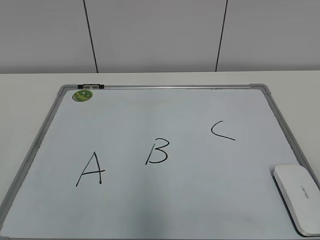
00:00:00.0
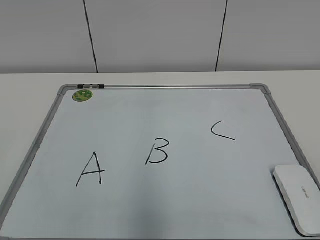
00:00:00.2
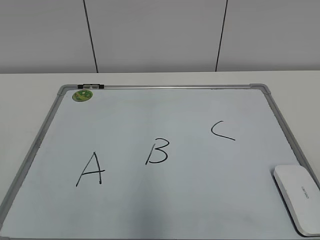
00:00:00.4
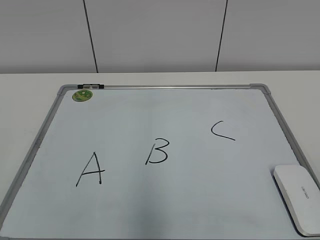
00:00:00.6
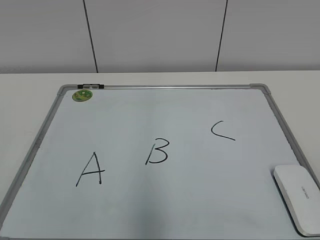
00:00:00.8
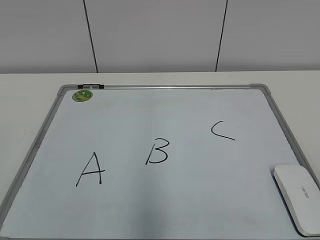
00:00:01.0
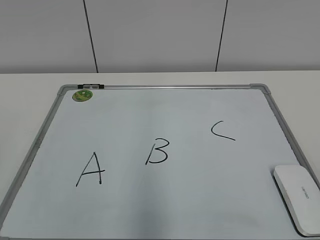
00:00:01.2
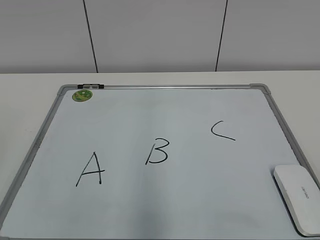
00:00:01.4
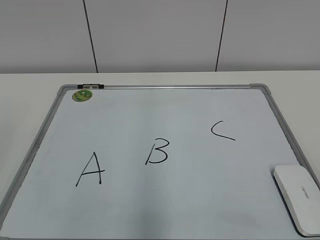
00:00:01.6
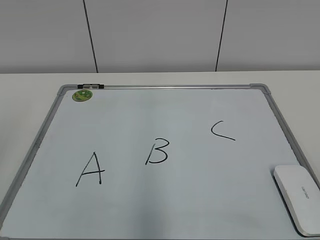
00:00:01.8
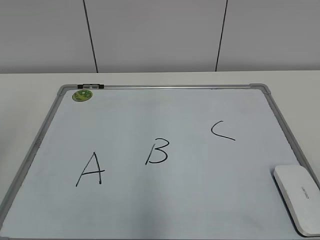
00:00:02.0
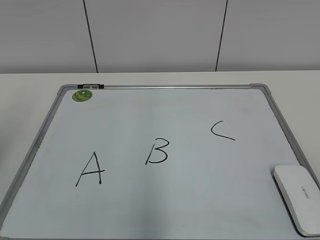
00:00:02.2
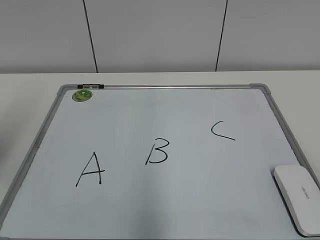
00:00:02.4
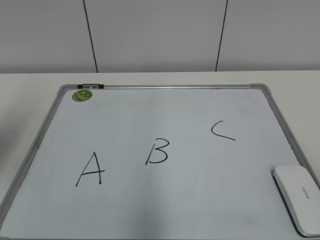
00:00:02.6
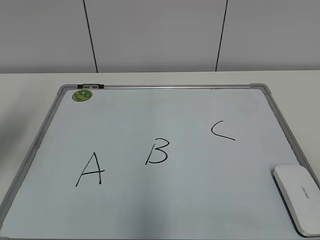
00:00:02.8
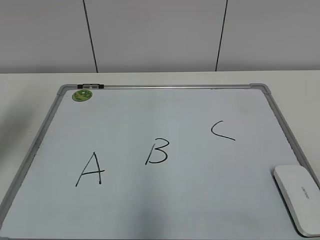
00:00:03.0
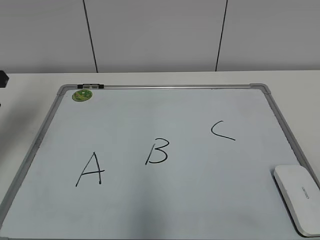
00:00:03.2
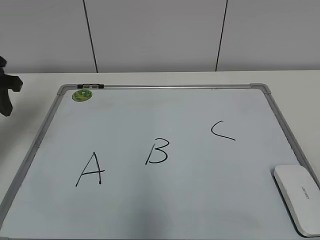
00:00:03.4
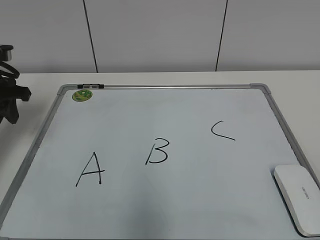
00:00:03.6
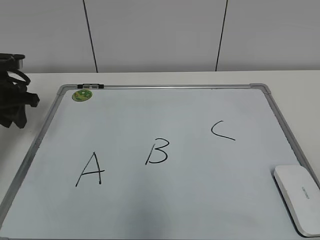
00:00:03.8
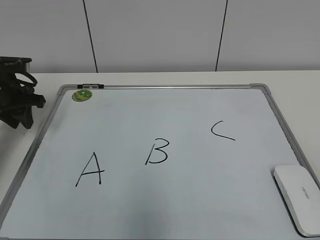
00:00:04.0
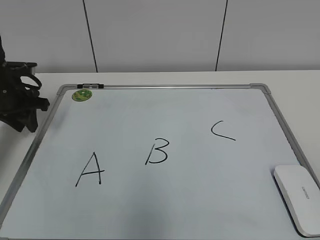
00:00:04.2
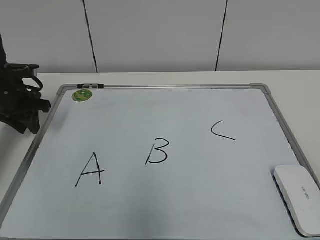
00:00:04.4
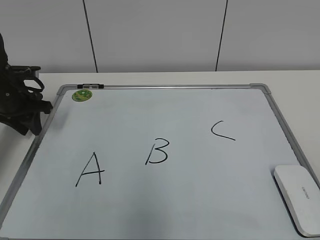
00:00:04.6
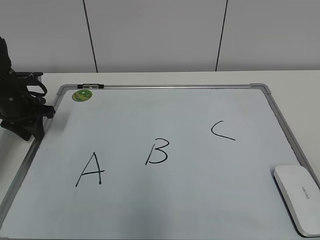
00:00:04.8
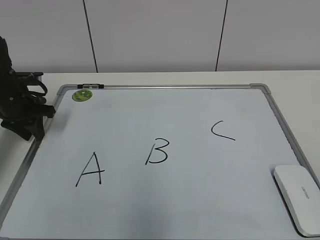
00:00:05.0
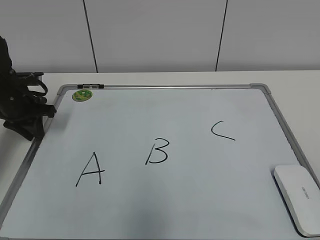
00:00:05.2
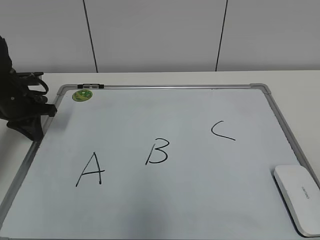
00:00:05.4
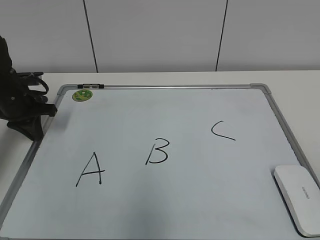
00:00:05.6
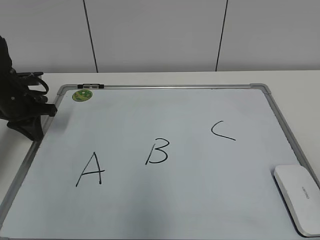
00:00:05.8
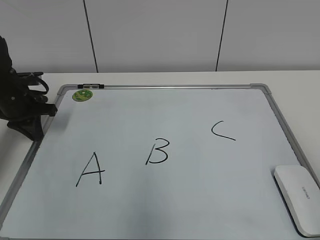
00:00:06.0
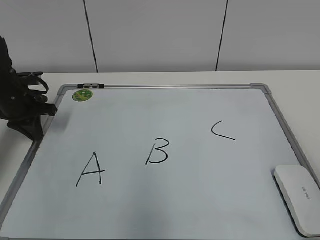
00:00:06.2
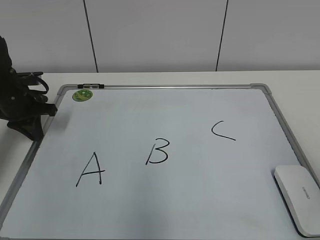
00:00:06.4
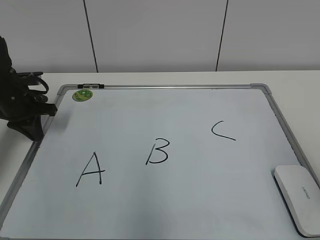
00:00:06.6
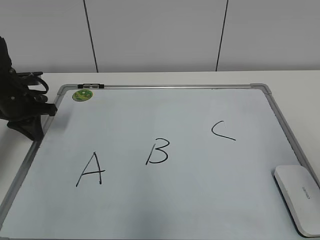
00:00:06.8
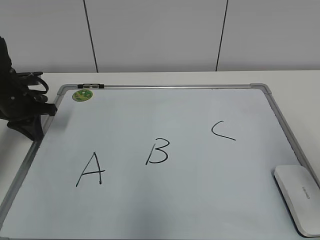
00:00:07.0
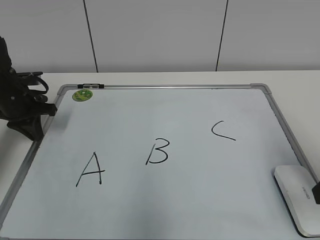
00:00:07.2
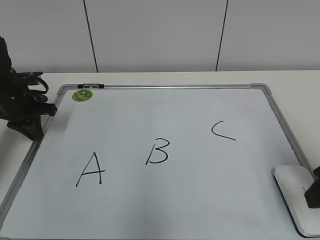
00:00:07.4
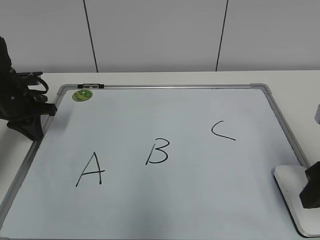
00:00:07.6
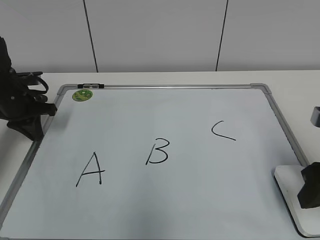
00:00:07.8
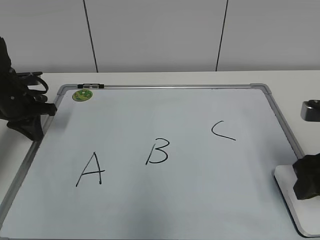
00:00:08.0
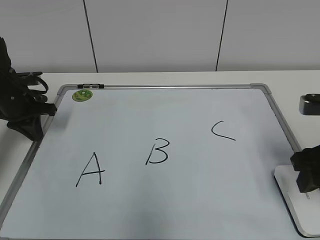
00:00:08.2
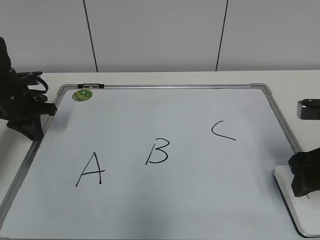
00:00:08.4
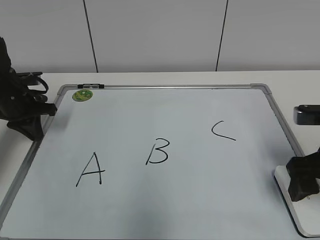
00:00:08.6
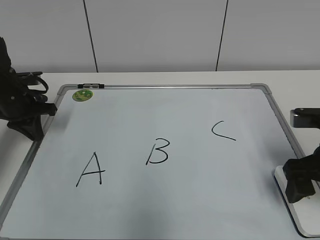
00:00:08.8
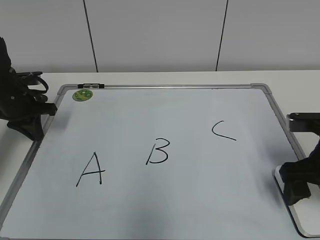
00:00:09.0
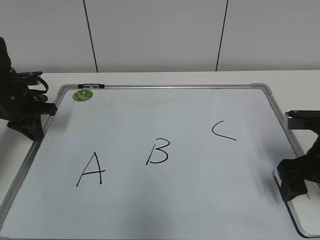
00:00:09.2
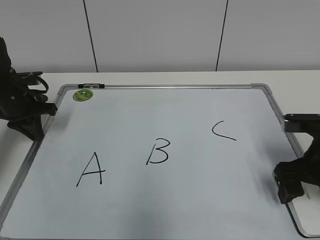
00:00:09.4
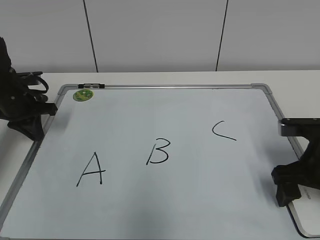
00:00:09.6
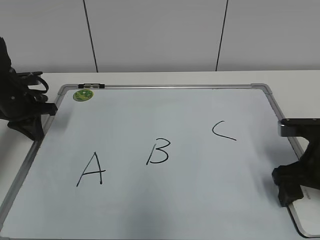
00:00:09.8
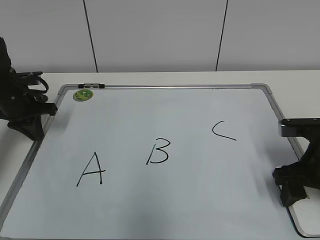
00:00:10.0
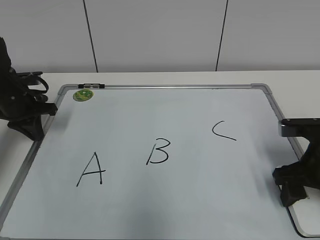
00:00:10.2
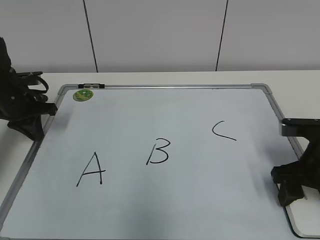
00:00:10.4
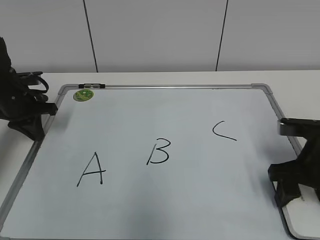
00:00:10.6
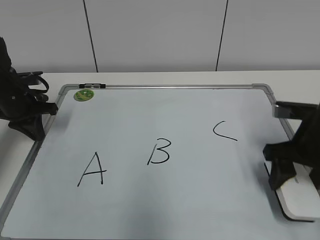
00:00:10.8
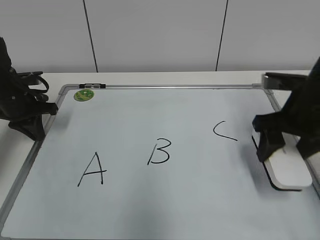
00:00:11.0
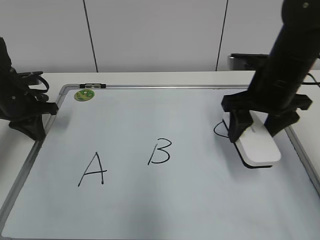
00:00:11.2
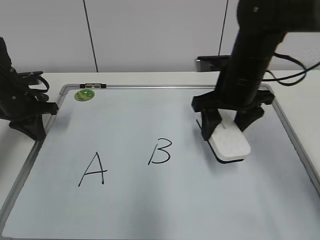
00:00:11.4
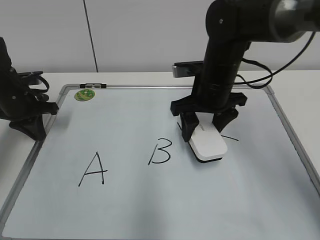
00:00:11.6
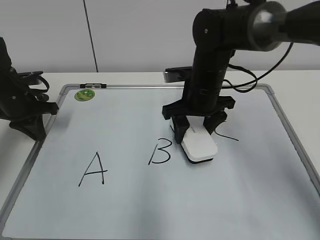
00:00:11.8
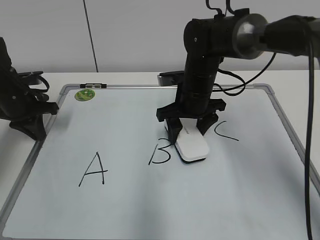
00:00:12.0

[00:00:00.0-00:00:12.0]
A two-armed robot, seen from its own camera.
Task of the whole recording: pick up the eraser on the blackboard and erase the letter "B".
Step, 00:00:00.0 to 00:00:05.2: Hold the drawing board steady with your left hand.
Step, 00:00:05.4 to 00:00:10.0: Grab the eraser with your right hand.
00:00:01.6 to 00:00:03.0: The left gripper is displaced forward by roughly 20 cm.
00:00:03.0 to 00:00:04.4: The left gripper goes approximately 15 cm downward and forward.
00:00:04.4 to 00:00:06.0: The left gripper closes up.
00:00:06.0 to 00:00:07.6: The right gripper travels forward and downward by some 20 cm.
00:00:07.6 to 00:00:09.0: The right gripper ends up some 5 cm from where it was, and opens its fingers.
00:00:09.0 to 00:00:10.4: The right gripper closes.
00:00:10.4 to 00:00:12.0: The right gripper heads to the left and forward, covering approximately 25 cm.

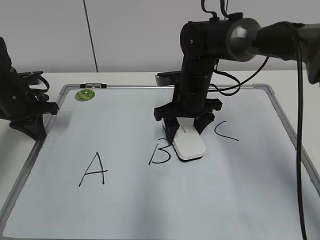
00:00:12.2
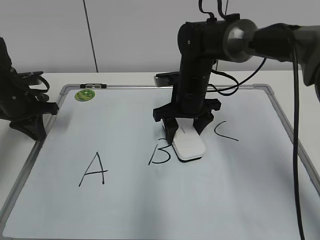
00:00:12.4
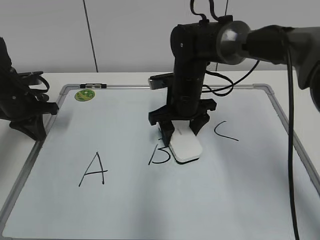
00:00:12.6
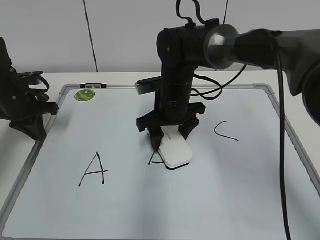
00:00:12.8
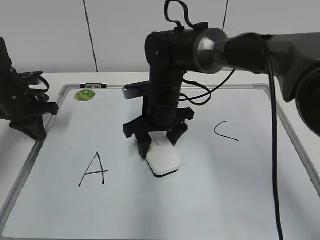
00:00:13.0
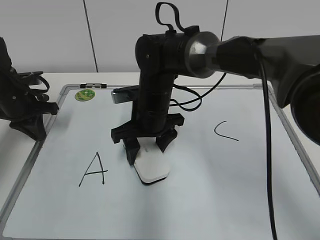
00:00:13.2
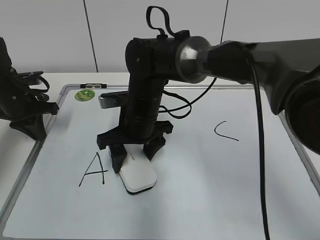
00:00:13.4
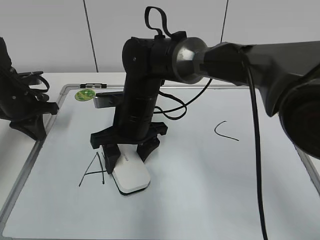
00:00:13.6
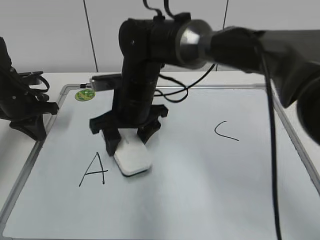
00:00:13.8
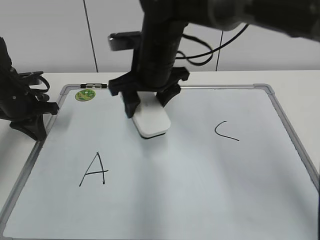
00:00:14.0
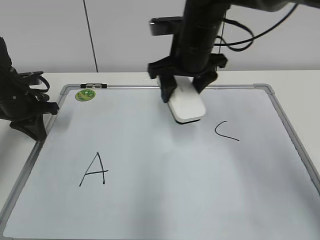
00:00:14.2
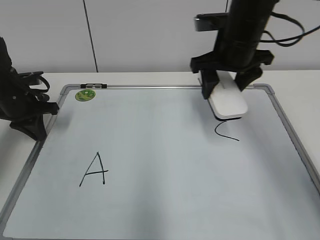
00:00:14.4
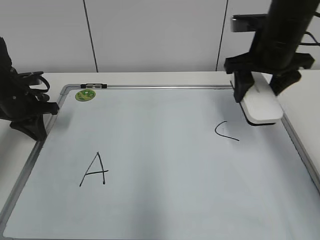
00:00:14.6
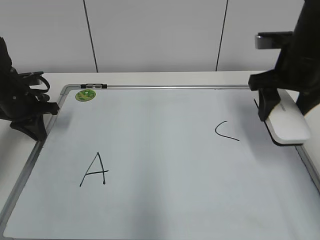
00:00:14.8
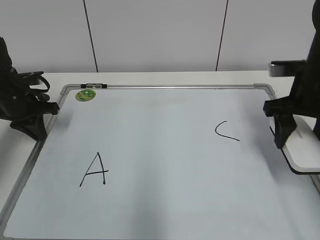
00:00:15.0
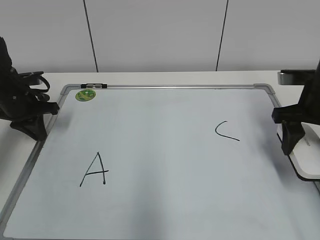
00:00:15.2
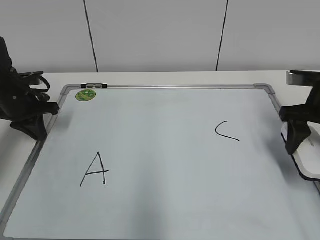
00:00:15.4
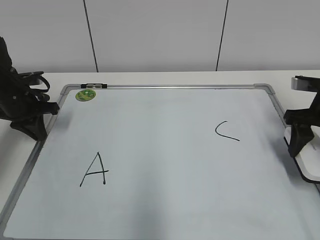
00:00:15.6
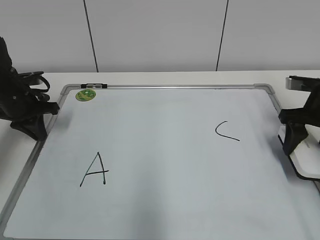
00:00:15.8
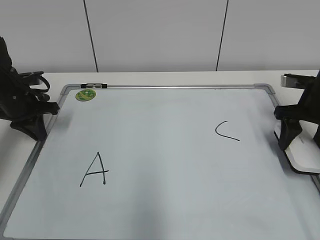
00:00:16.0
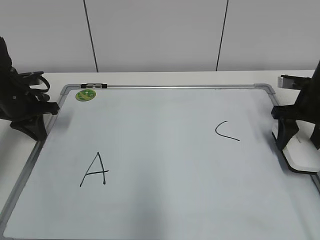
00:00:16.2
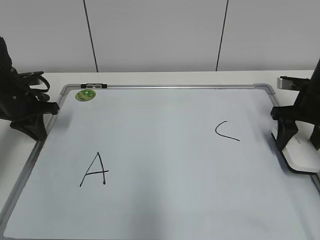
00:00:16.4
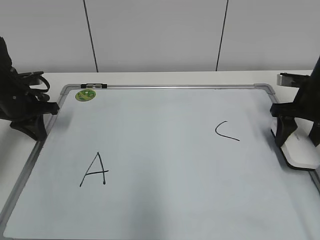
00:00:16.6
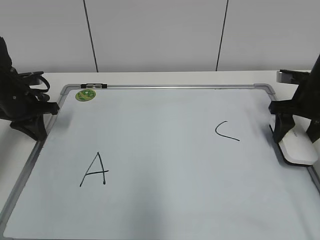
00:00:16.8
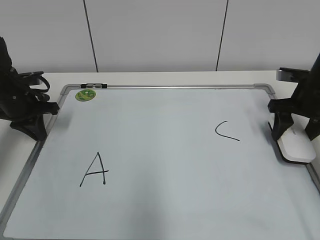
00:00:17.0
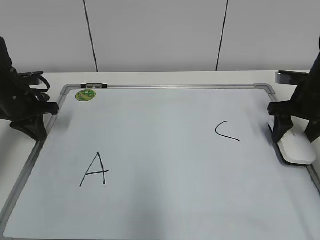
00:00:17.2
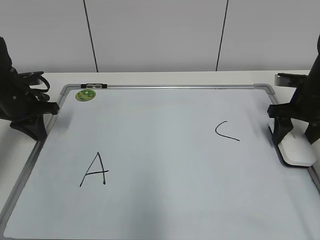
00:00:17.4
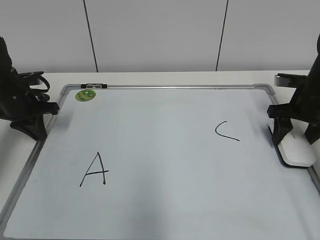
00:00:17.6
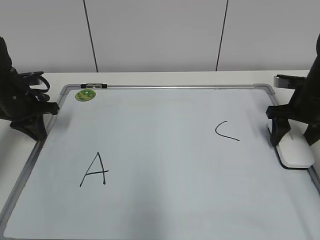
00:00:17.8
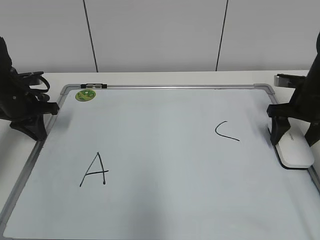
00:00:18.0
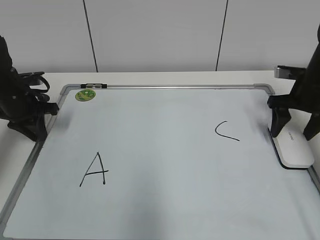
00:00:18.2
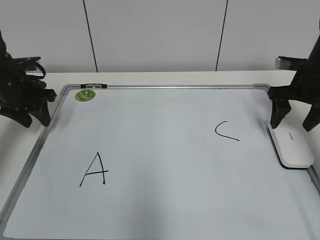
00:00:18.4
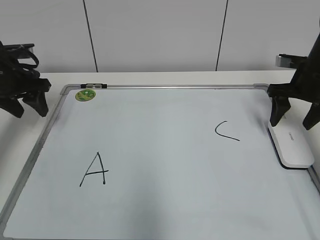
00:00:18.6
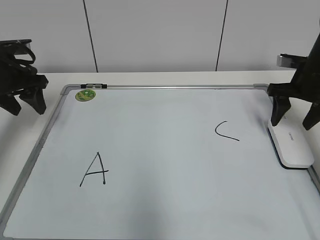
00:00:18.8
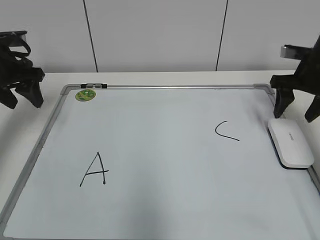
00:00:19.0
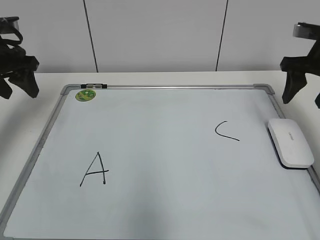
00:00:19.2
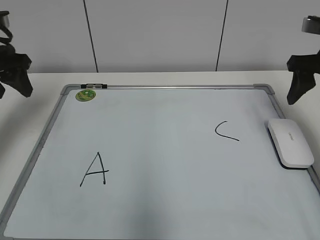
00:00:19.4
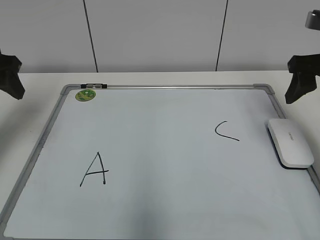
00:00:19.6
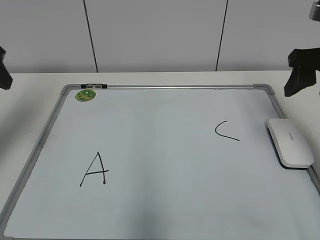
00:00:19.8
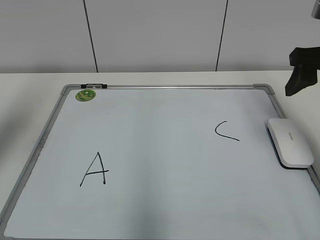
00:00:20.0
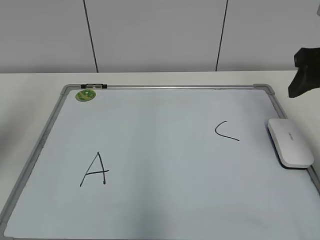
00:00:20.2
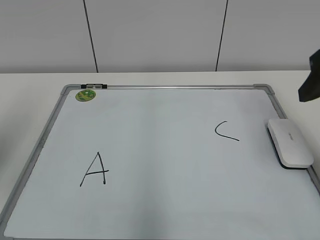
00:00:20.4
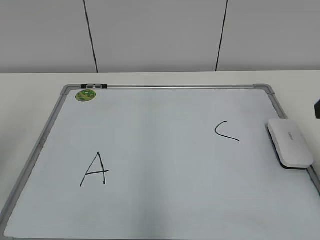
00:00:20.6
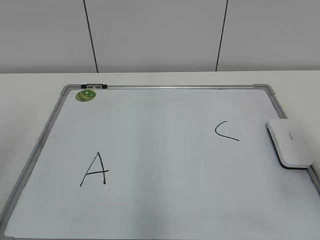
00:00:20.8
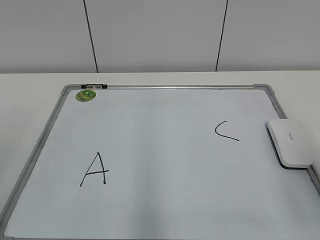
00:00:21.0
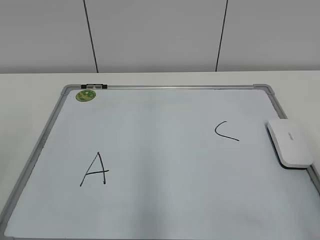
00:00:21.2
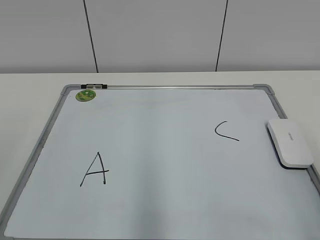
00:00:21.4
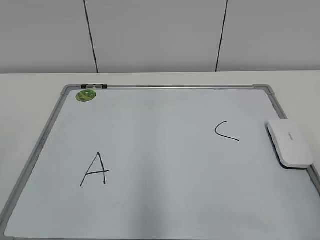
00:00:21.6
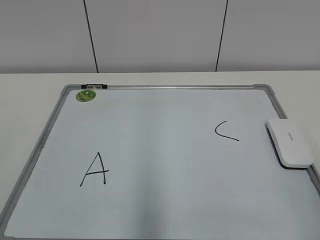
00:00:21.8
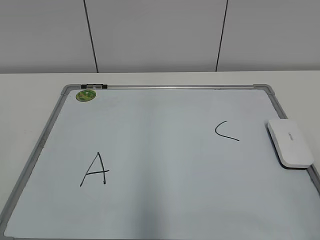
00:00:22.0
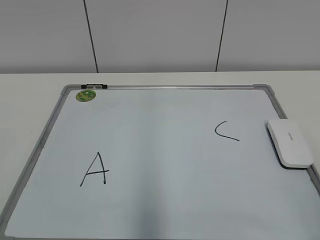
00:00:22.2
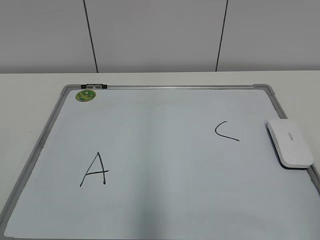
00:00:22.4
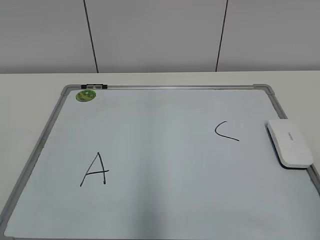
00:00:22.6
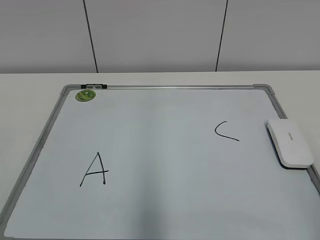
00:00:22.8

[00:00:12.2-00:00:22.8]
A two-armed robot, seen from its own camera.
Task of the whole recording: pick up the eraser on the blackboard and erase the letter "B".
Step, 00:00:13.8 to 00:00:18.0: Put down the eraser with your right hand.
00:00:12.2 to 00:00:13.8: The right gripper moves to the left and backward, about 10 cm.
00:00:13.8 to 00:00:15.2: The right gripper goes about 30 cm to the right.
00:00:15.2 to 00:00:16.8: The right gripper goes some 5 cm forward.
00:00:16.8 to 00:00:18.2: The right gripper opens.
00:00:18.2 to 00:00:19.8: The grippers both shift upward and backward by approximately 15 cm. The left gripper opens its fingers.
00:00:19.8 to 00:00:21.2: The grippers both shift backward by approximately 20 cm.
